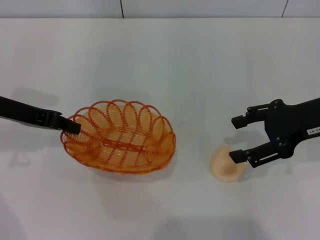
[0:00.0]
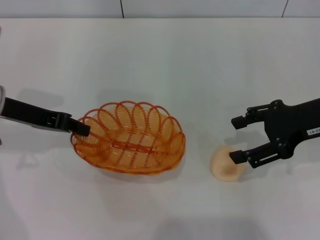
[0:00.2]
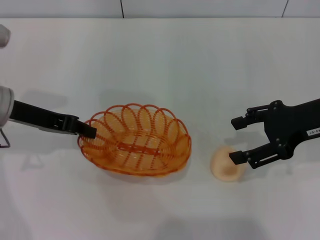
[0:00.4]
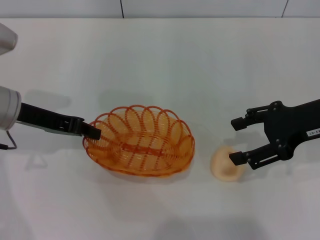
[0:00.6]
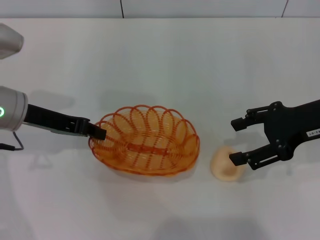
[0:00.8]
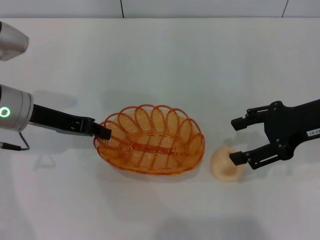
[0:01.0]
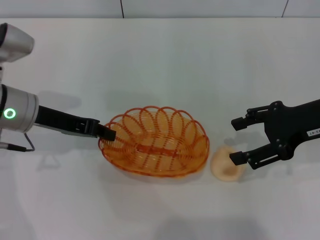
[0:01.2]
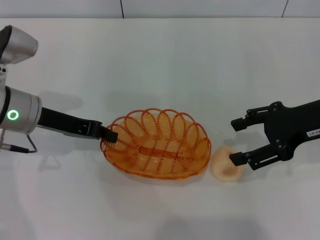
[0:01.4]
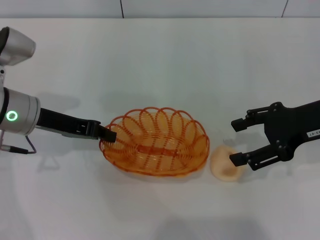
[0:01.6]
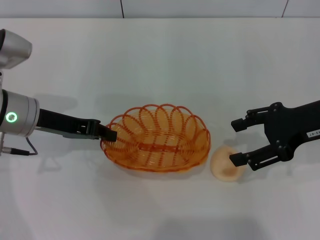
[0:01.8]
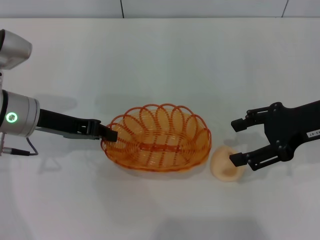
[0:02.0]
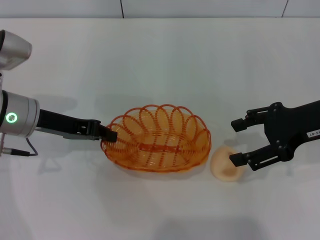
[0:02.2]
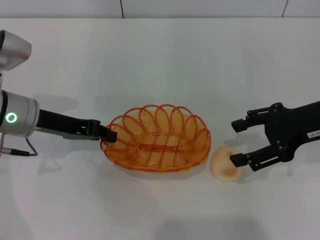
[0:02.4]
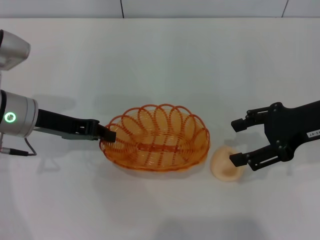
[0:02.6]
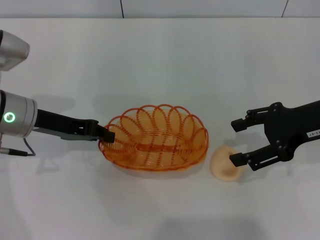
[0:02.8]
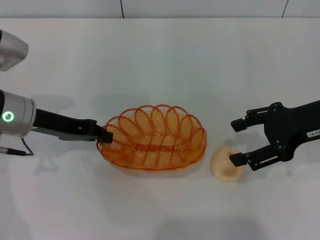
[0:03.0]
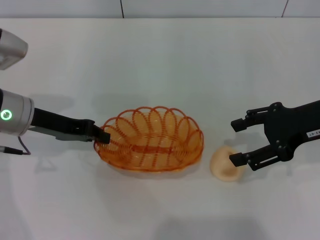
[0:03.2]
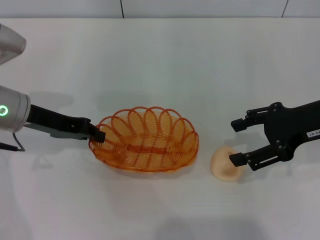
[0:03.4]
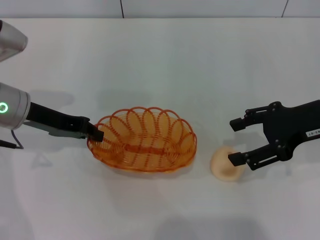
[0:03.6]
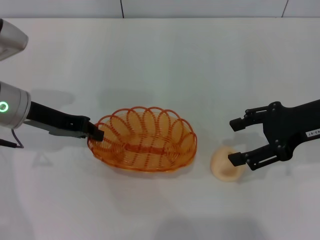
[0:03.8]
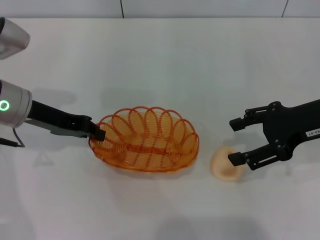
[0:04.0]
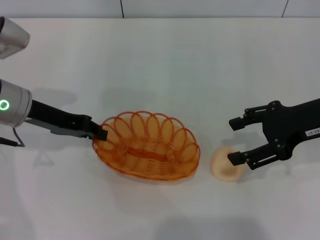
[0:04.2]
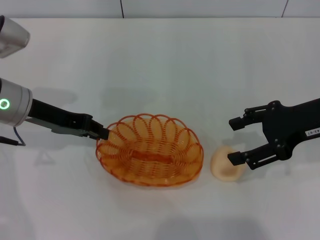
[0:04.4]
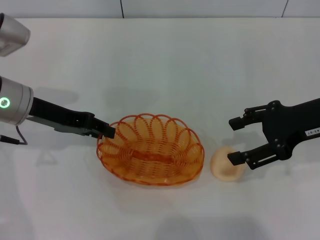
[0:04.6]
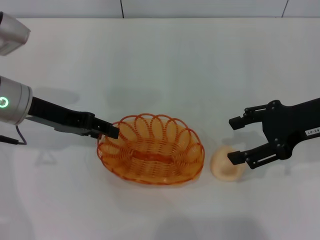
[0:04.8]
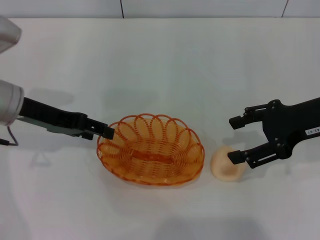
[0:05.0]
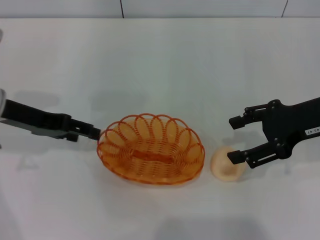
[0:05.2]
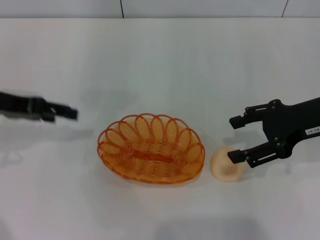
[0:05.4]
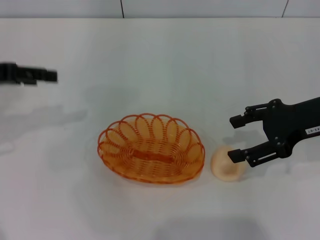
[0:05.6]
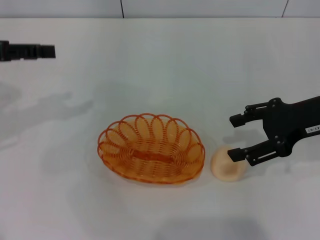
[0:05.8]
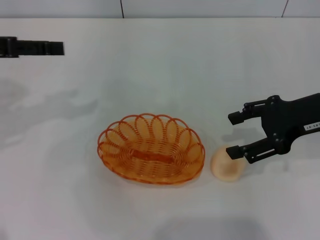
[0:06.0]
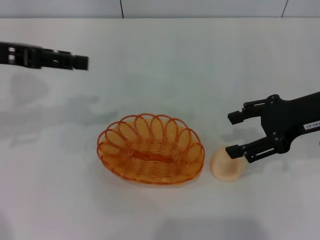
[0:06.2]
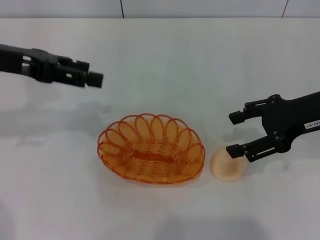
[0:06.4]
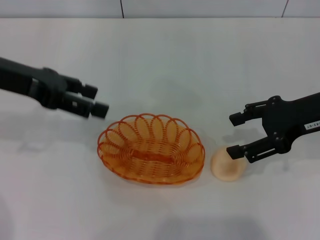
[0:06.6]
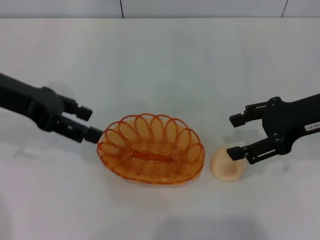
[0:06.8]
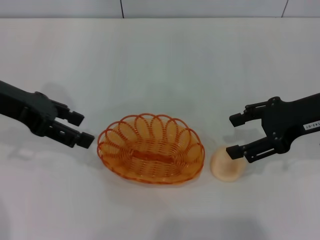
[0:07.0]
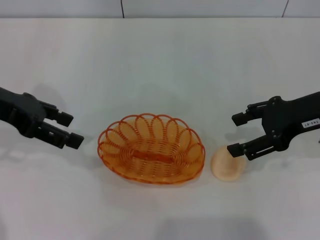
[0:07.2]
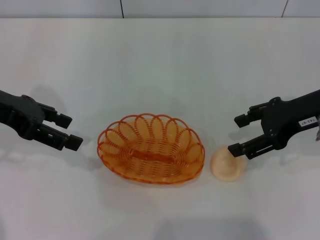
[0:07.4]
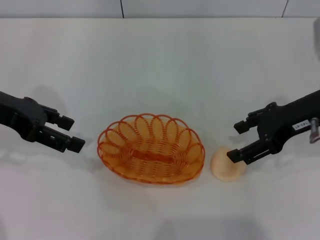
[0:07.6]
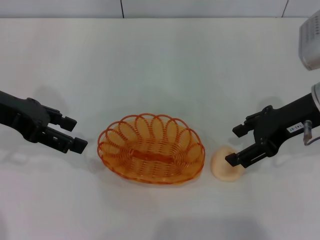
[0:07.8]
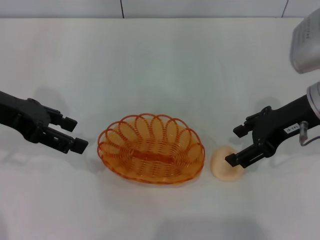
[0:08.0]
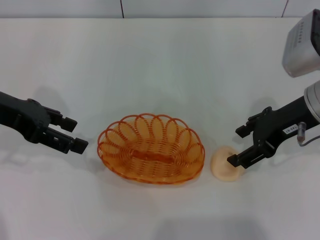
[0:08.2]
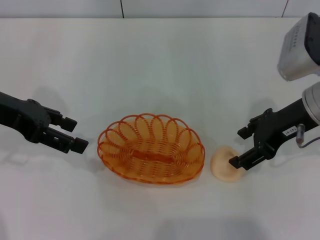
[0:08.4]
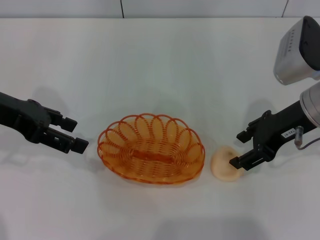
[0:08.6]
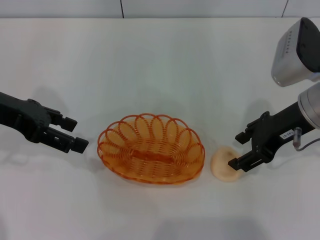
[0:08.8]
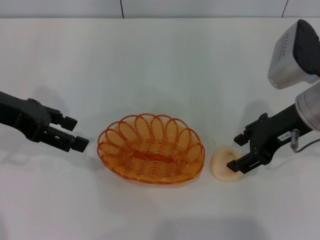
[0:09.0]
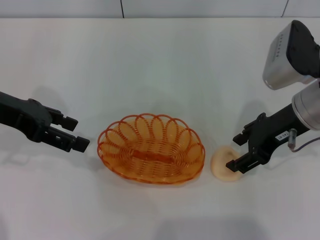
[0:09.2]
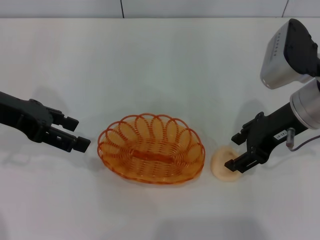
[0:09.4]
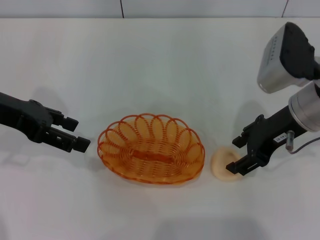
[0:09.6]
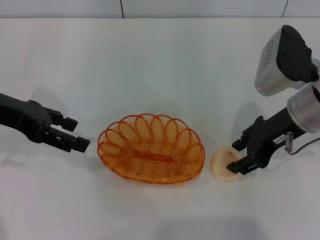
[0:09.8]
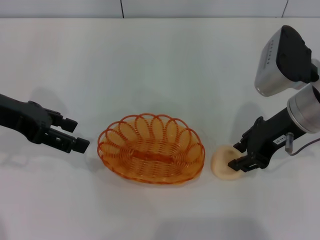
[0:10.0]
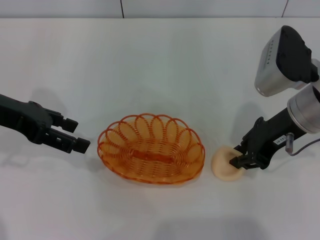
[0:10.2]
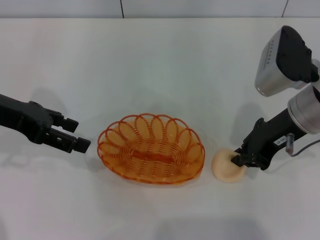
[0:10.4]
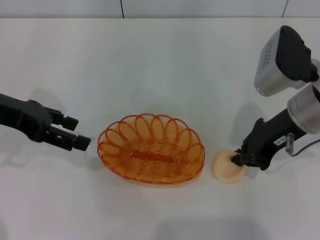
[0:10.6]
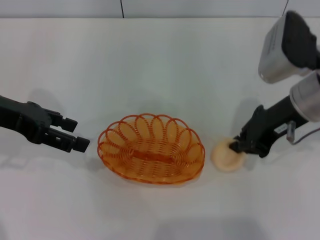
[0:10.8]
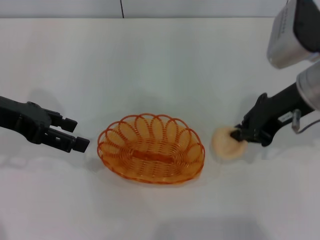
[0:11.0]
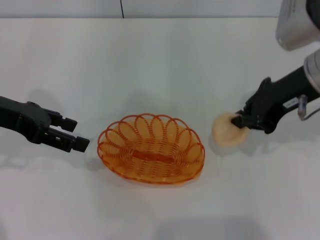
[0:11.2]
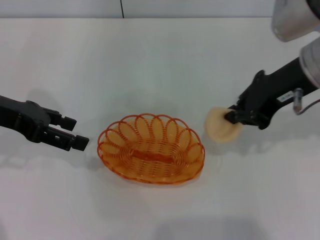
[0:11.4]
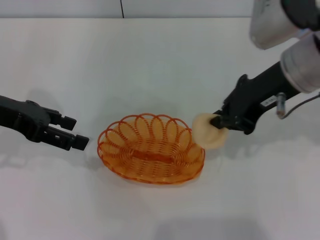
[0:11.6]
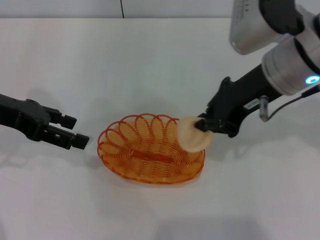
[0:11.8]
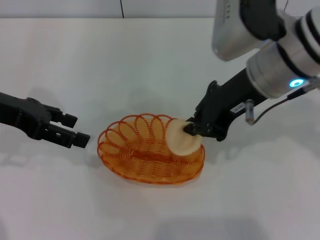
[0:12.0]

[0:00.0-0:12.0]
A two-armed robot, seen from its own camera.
Step, 0:00.6 to 0:05.0: Place the basket in the center of view with the left gripper.
Step, 0:05.4 to 0:11.0: Pick up the egg yolk pastry with the right gripper.
0:00.0 to 0:01.6: The left gripper ends up about 5 cm from where it was.
0:01.6 to 0:04.4: The grippers move only a little.
0:04.4 to 0:06.0: The left gripper travels upward and to the left by approximately 10 cm, and opens up.
0:07.6 to 0:09.0: The grippers move only a little.
0:09.0 to 0:10.4: The right gripper closes.
0:10.4 to 0:12.0: The right gripper goes roughly 10 cm upward and to the left.

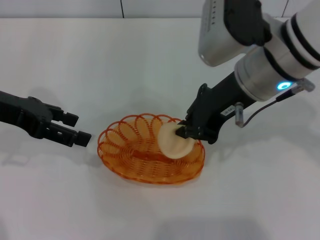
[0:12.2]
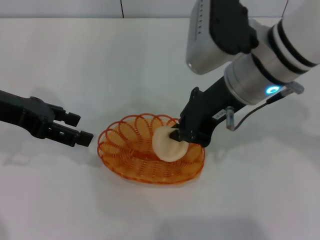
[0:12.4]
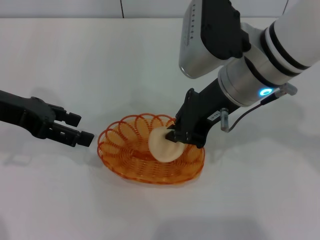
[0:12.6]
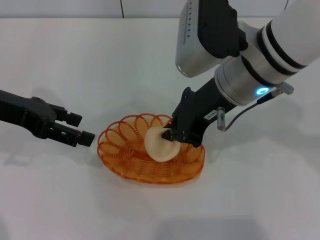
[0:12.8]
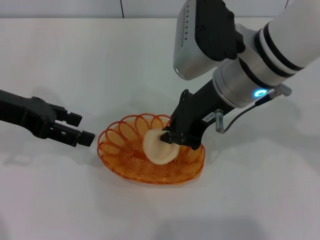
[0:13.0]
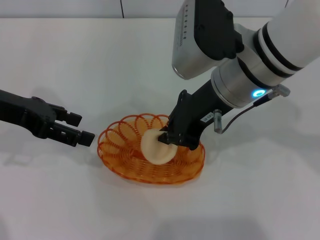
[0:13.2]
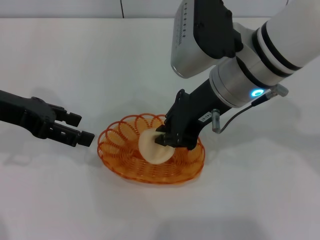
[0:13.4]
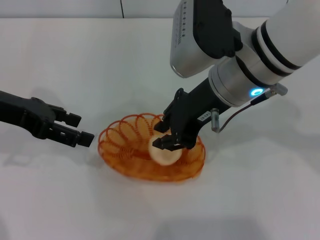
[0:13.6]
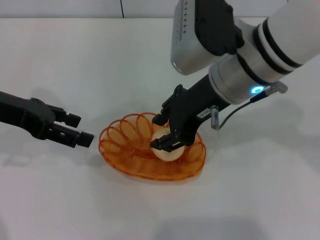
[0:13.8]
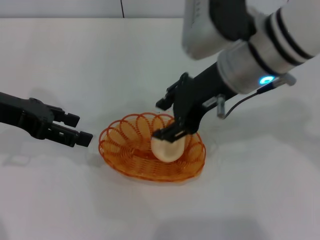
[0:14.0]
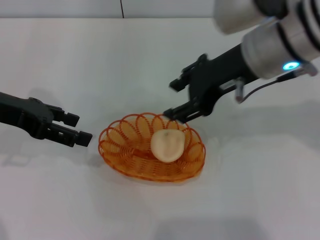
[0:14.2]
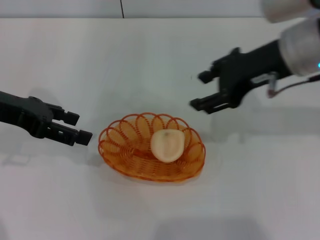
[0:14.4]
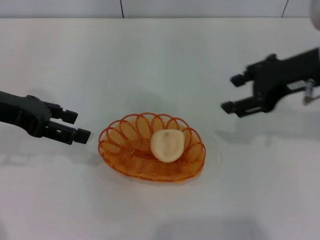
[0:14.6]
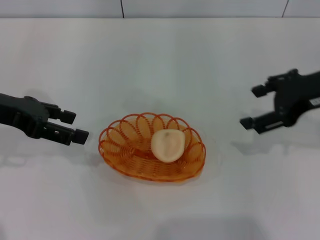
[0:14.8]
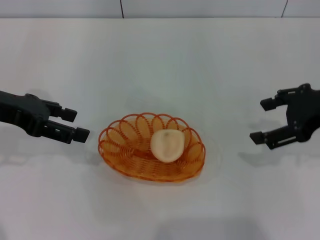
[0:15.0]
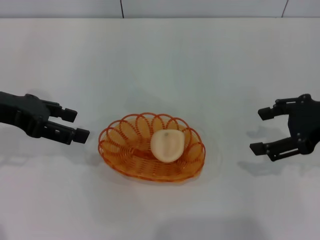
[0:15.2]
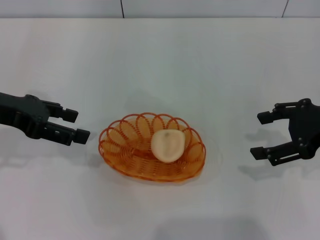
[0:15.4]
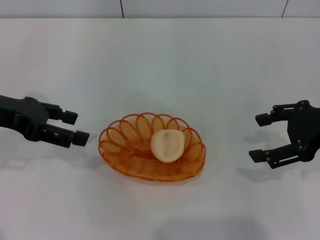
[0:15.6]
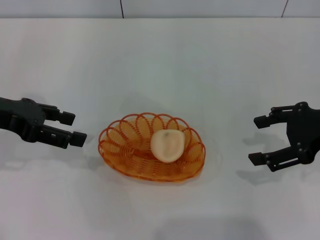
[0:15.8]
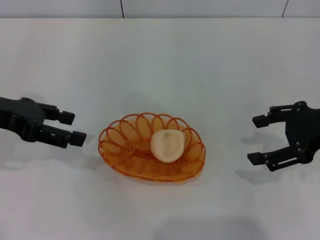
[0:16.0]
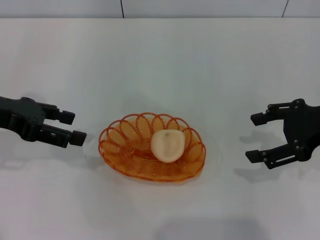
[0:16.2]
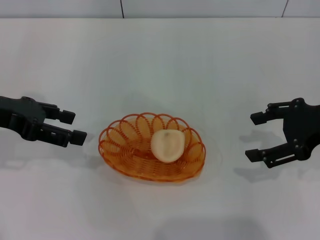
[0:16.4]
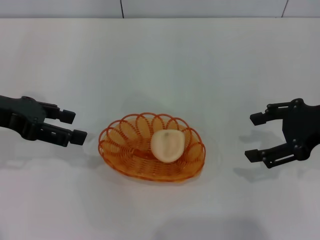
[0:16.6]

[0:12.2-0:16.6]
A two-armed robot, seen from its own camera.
Step, 0:12.2 to 0:14.2: Place the egg yolk pastry into the basket with the right gripper.
0:12.2 to 0:13.6: There are only small adjustments of the grippers.
0:13.6 to 0:15.2: The right gripper moves to the right, about 20 cm, and opens its fingers.
0:15.2 to 0:16.6: Both grippers stay about where they are.
